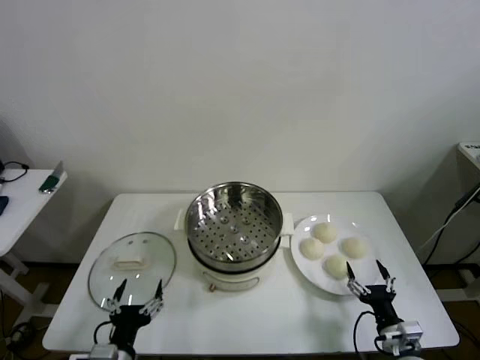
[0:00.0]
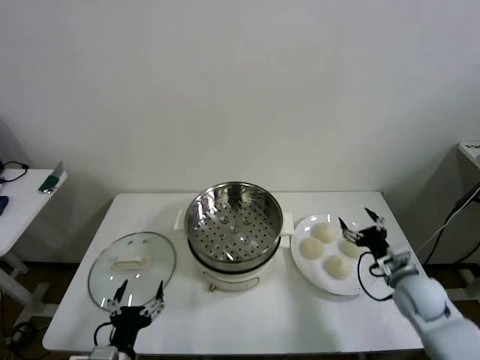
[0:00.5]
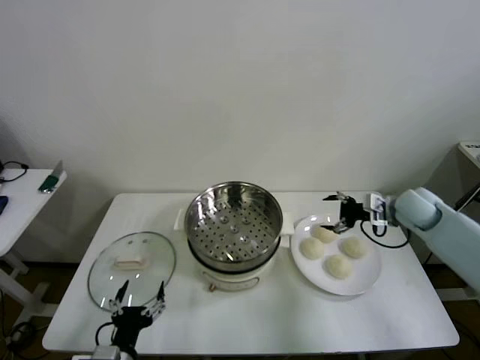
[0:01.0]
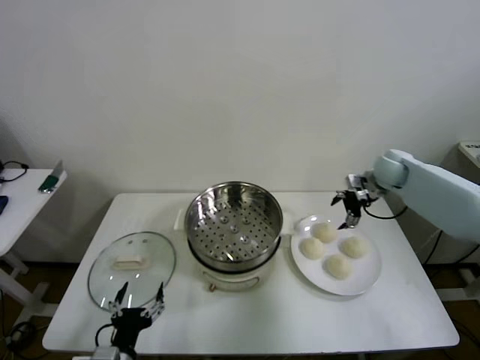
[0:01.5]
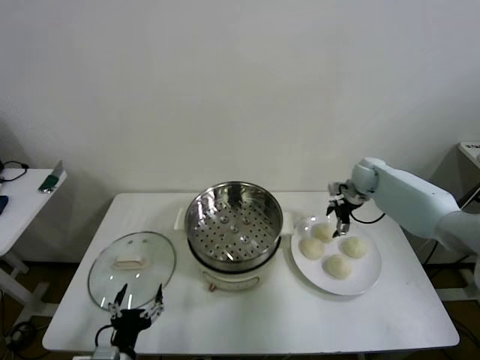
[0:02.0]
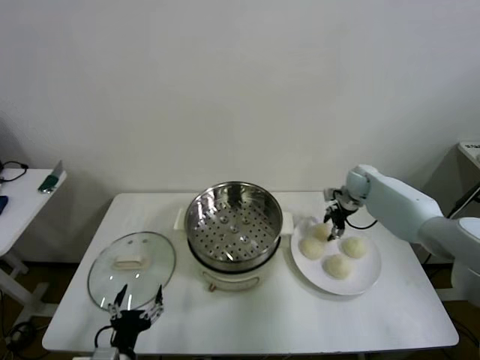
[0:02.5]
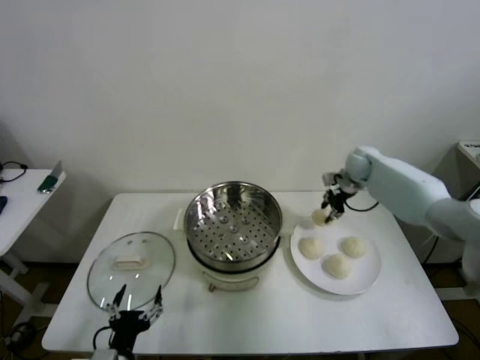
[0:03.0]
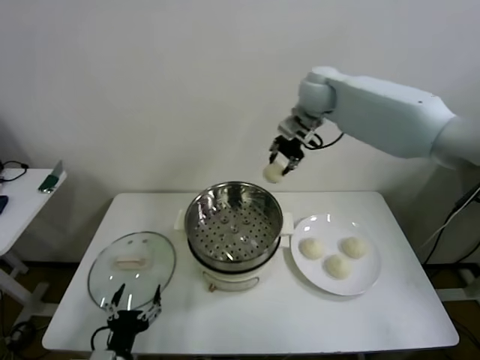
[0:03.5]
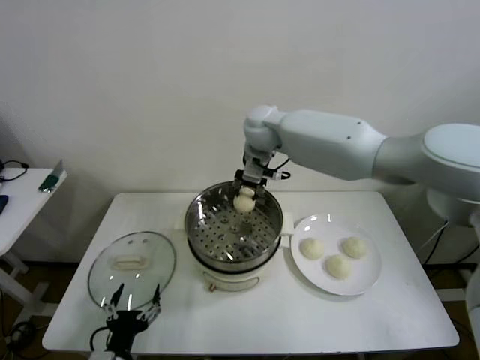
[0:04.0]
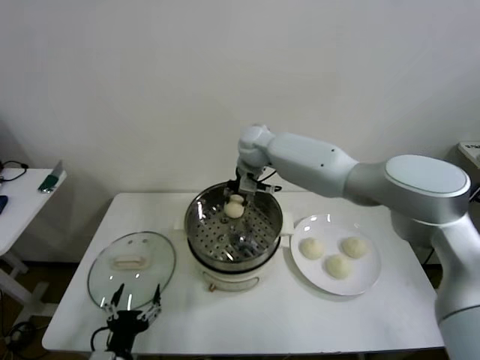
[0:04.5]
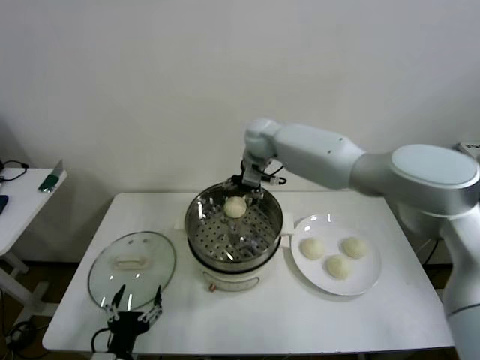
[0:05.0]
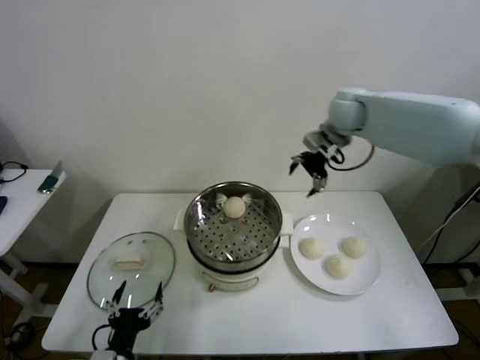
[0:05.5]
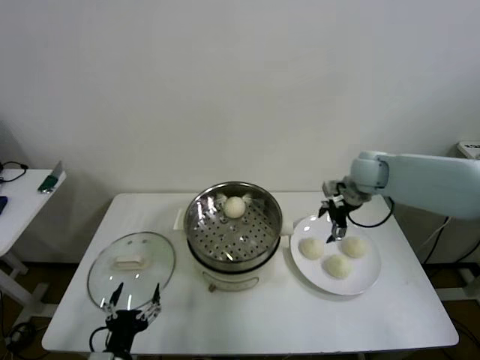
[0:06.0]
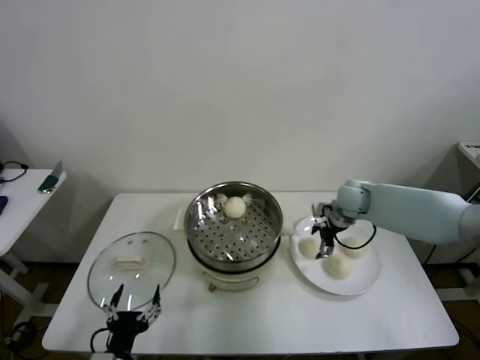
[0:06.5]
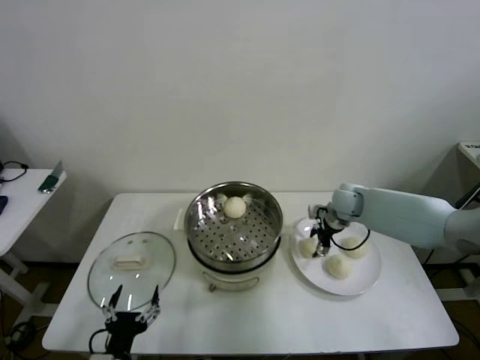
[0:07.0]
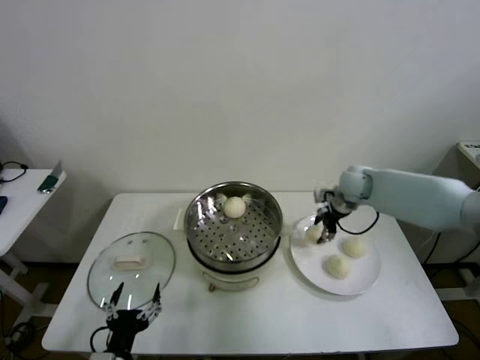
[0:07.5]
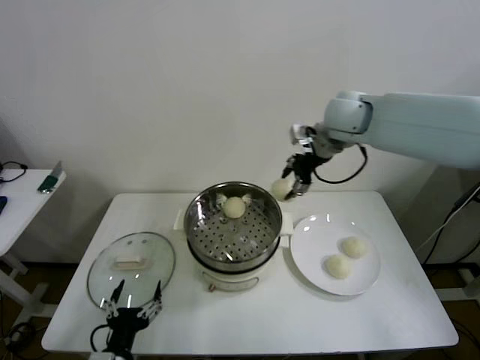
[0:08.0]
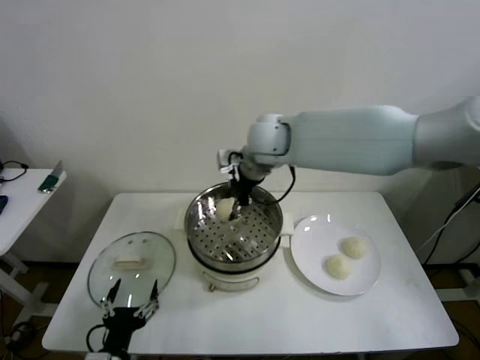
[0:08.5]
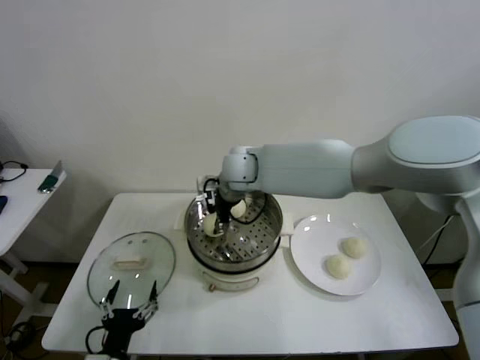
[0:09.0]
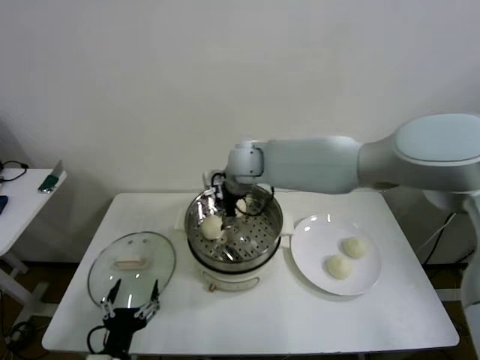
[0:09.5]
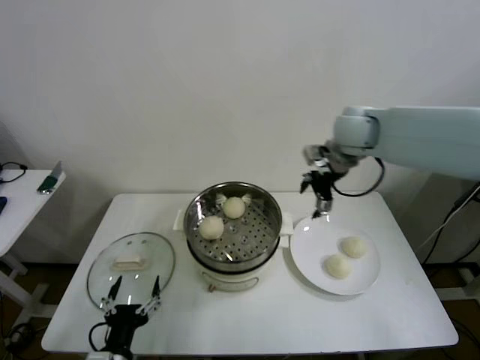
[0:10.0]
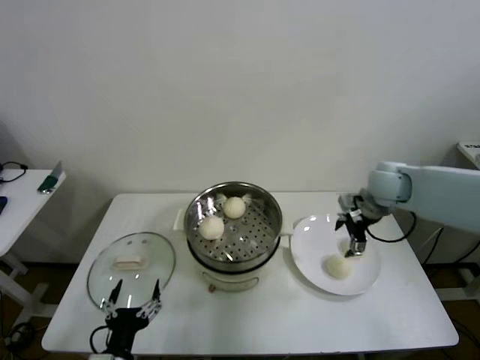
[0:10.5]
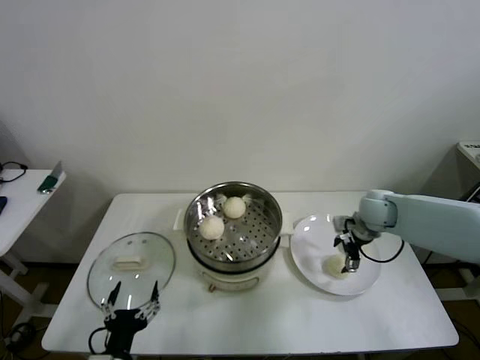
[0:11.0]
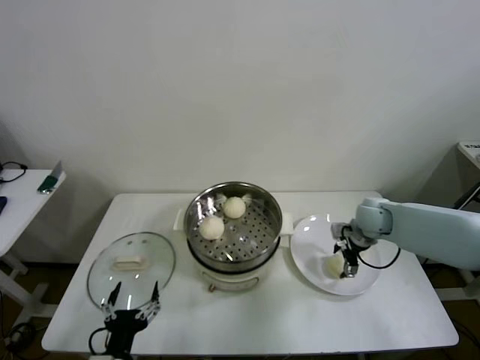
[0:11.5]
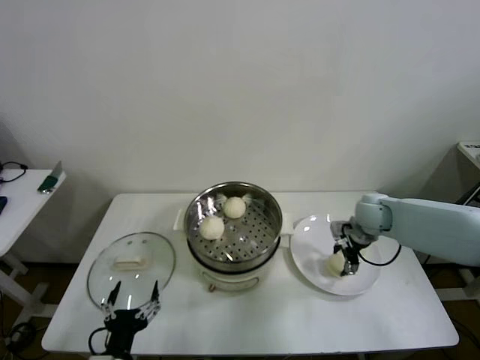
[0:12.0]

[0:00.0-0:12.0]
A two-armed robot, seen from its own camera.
Step, 0:00.0 to 0:02.5: Grasp the baozi in the plate with right gripper.
Step, 0:03.0 to 0:04.5: Place the baozi on the steamer with right gripper.
Step, 0:05.0 to 0:07.0: Grasp the baozi in the plate with right gripper.
Step, 0:07.5 to 0:09.5: Place the baozi on the steamer with right gripper.
Step, 0:10.0 to 0:11.5: Grasp the baozi in the plate with right gripper.
0:02.0 to 0:04.0: The right gripper shifts approximately 35 cm to the left and upward, and closes up.
0:04.0 to 0:06.0: The right gripper shifts roughly 25 cm to the right, and opens.
0:06.0 to 0:08.0: The right gripper travels upward and to the left by about 20 cm, and closes.
0:08.0 to 0:10.0: The right gripper goes to the left and returns, approximately 20 cm each way, and opens its fingers.
0:10.0 to 0:12.0: The right gripper goes some 20 cm downward, and closes.

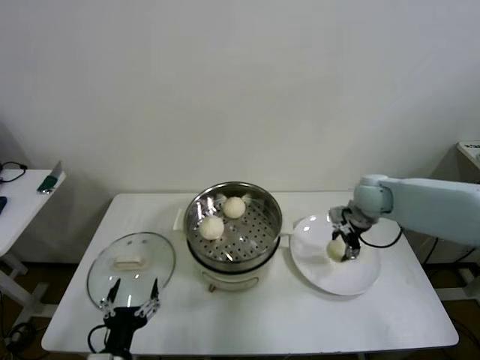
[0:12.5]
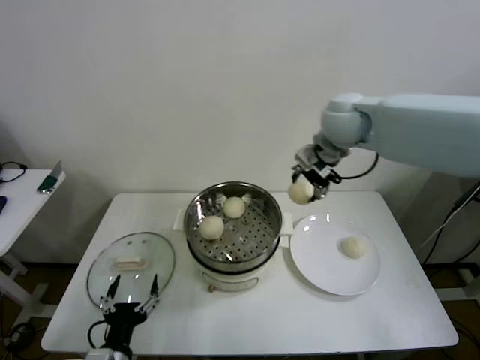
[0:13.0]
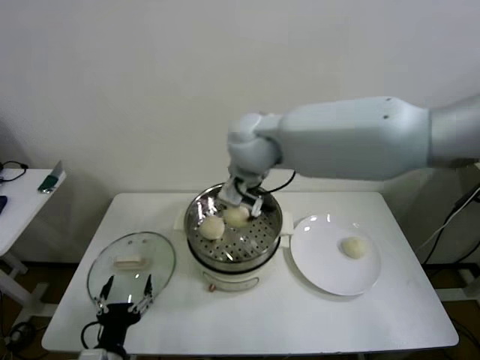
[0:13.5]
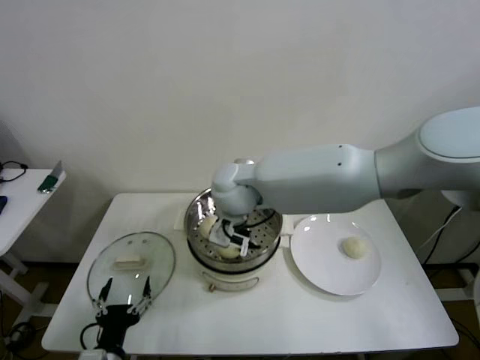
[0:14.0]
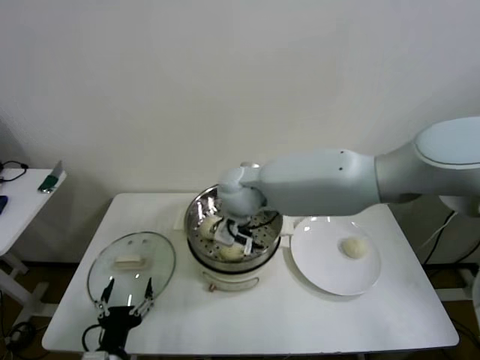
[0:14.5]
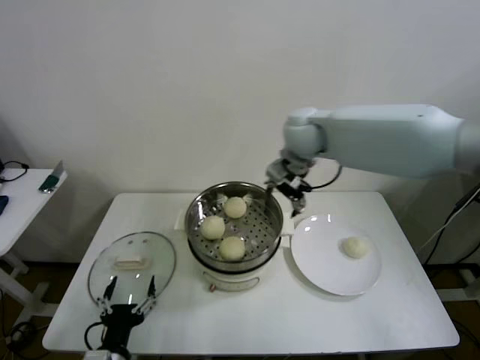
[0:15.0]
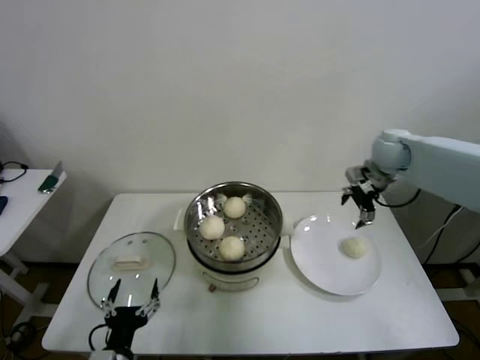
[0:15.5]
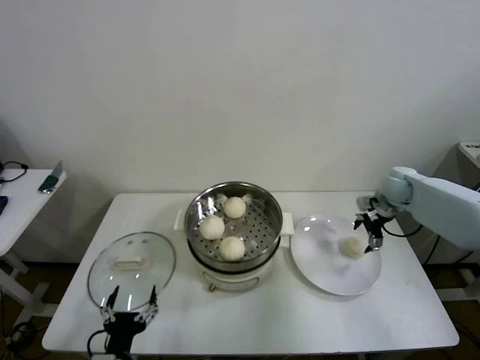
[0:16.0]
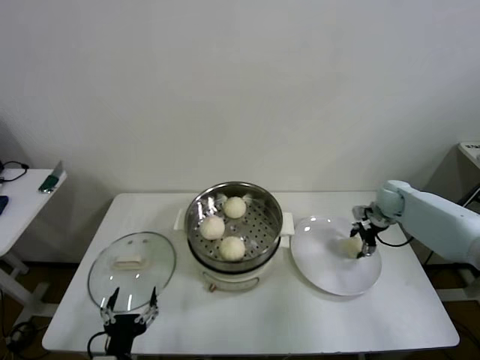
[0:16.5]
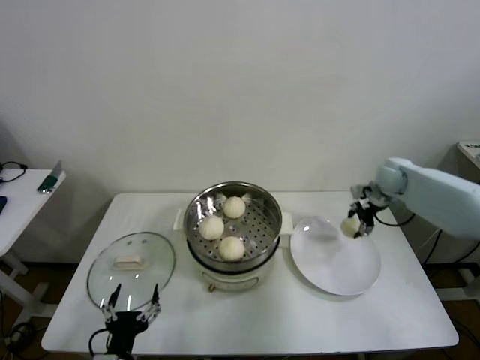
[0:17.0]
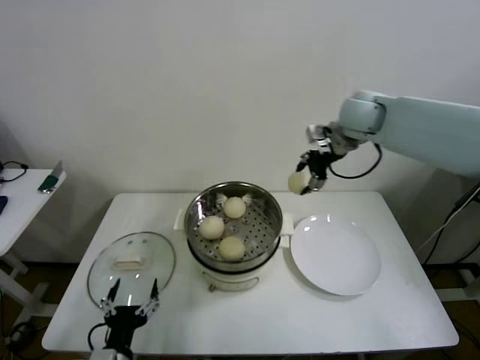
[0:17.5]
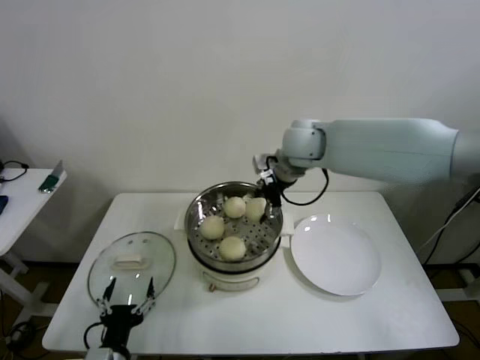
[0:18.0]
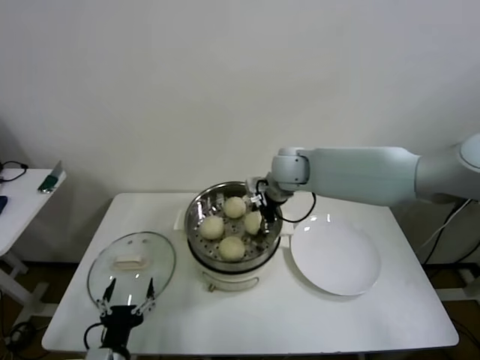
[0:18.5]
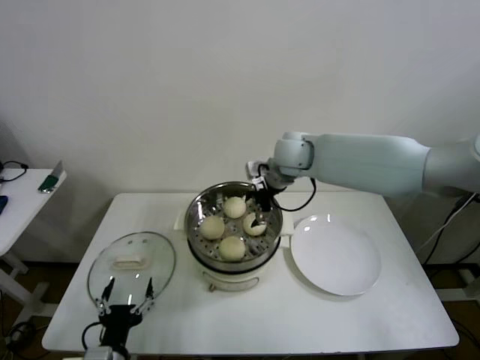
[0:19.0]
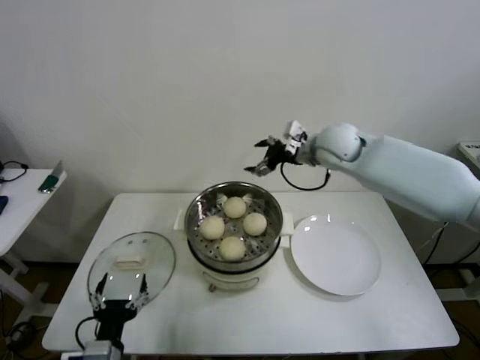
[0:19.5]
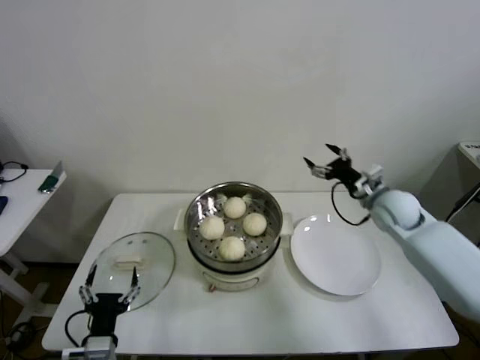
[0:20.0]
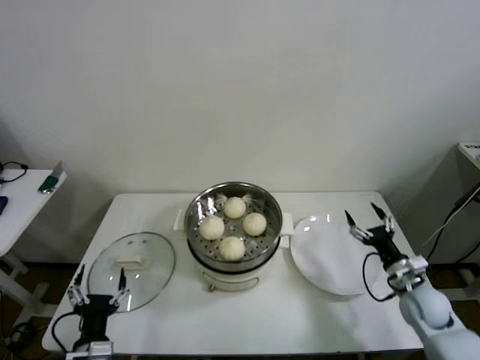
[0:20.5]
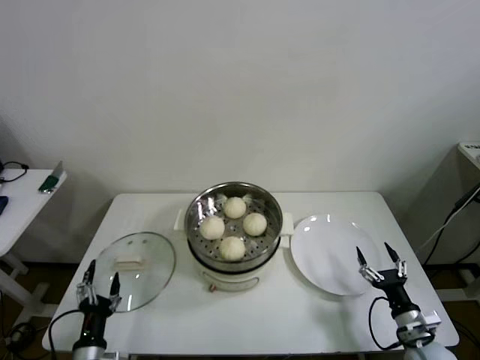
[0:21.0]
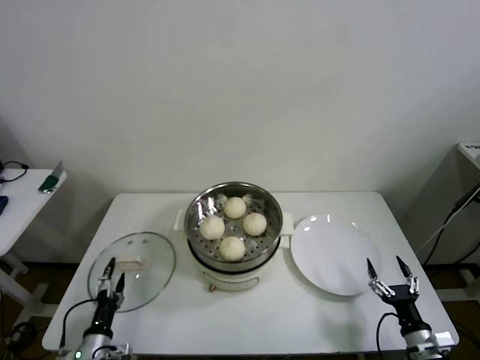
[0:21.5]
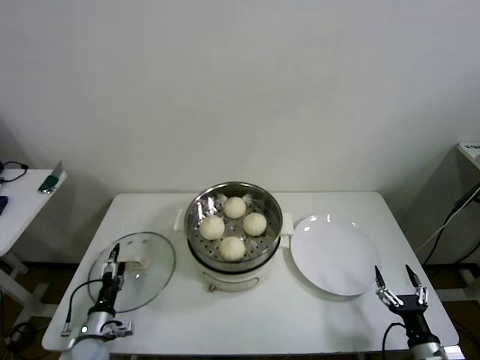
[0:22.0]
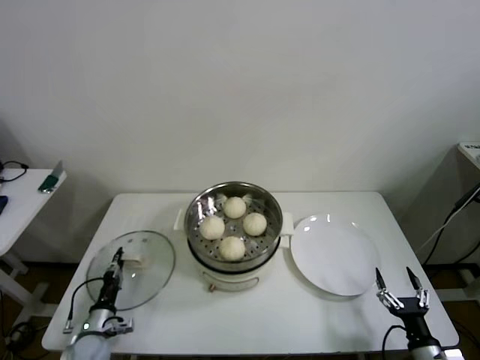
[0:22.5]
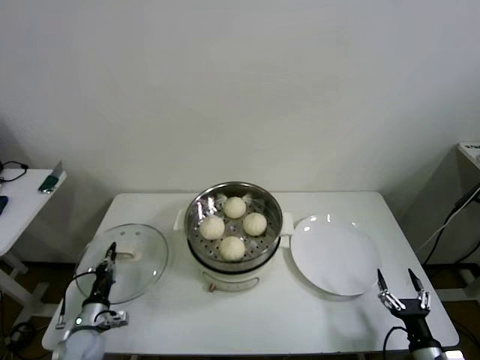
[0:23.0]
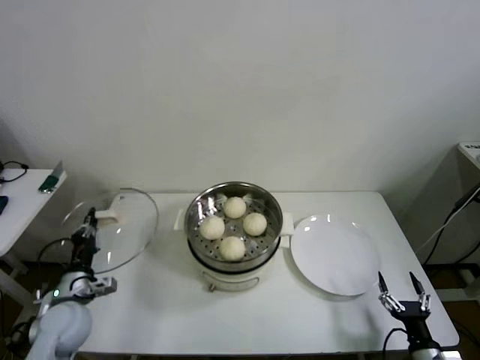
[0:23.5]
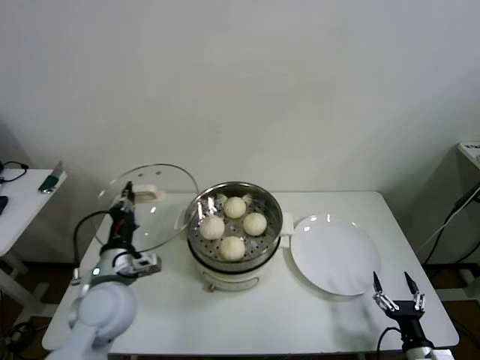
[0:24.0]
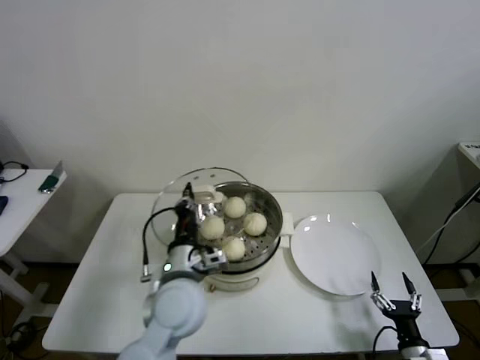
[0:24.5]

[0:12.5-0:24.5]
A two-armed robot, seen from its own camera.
Step, 0:12.5 to 0:14.5: Place the baozi on the steamer with right gripper.
Step, 0:15.0 to 0:16.5: Grasp the baozi in the plate with right gripper.
Step, 0:17.0 to 0:19.0: Place the baozi on the steamer with right gripper.
Step, 0:19.5 to 0:22.5: Grasp the pot lid with left gripper.
0:12.5 to 0:14.5: The right gripper moves to the left, some 30 cm, and opens its fingers.
0:14.5 to 0:16.5: The right gripper goes approximately 40 cm to the right.
0:16.5 to 0:18.5: The right gripper moves to the left and upward, about 35 cm.
0:18.5 to 0:20.5: The right gripper travels to the right, downward and backward by approximately 40 cm.
0:20.5 to 0:22.5: The right gripper moves backward, roughly 15 cm. The left gripper goes roughly 20 cm downward, forward and to the left, and closes up.
0:22.5 to 0:24.5: The left gripper heads upward and to the right, covering approximately 35 cm, and closes.

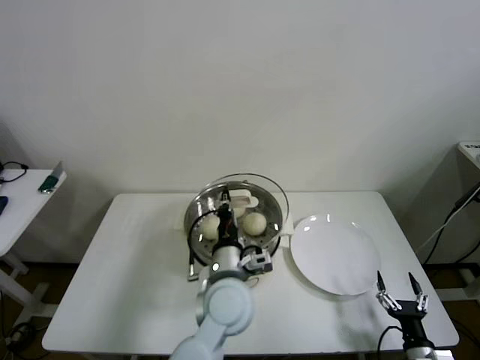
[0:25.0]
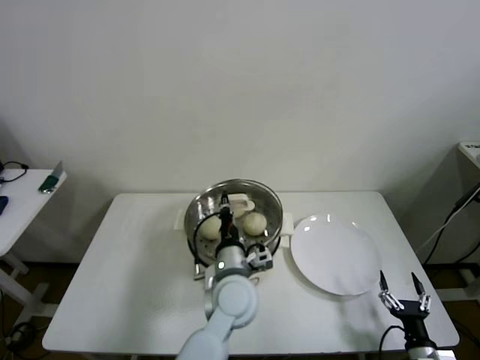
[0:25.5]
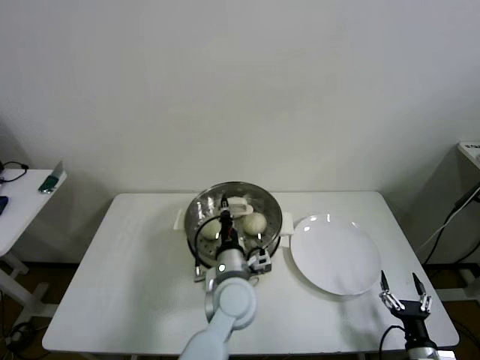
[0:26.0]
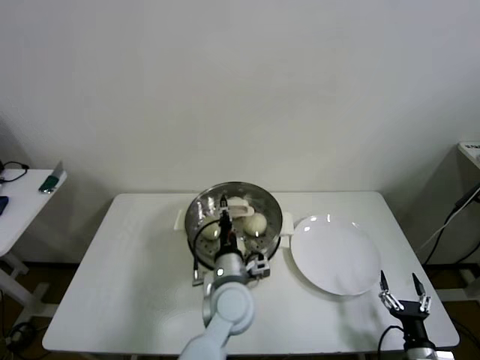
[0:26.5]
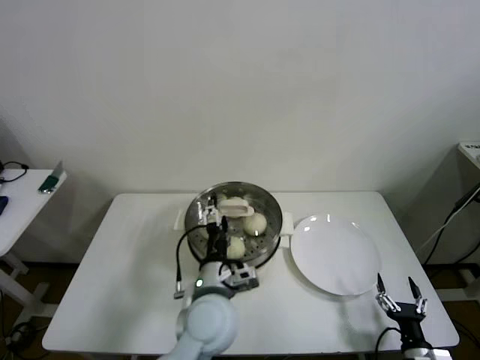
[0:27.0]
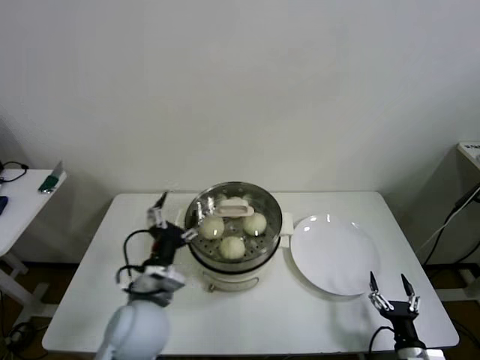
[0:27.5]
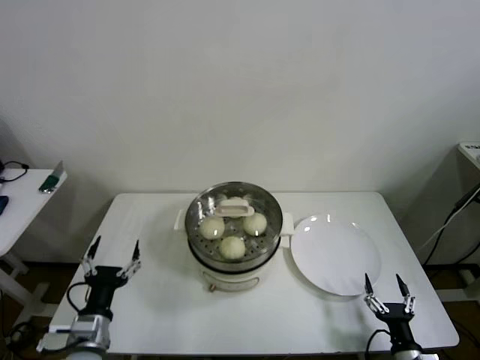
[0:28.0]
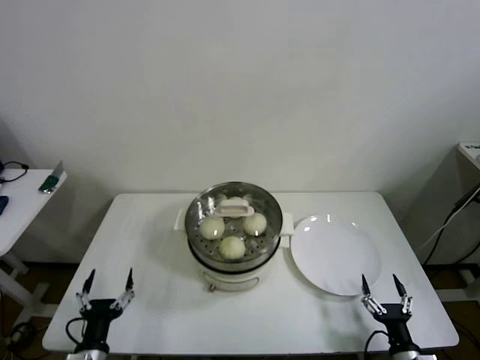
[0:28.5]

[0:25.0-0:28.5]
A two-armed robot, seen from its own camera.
0:25.0 to 0:27.0: The left gripper opens its fingers.
0:27.0 to 0:28.5: The left gripper shifts approximately 30 cm to the left, backward and downward.
